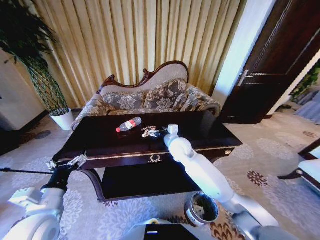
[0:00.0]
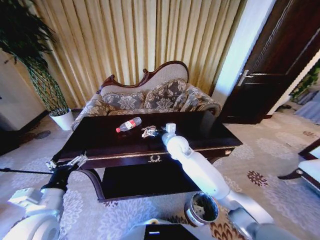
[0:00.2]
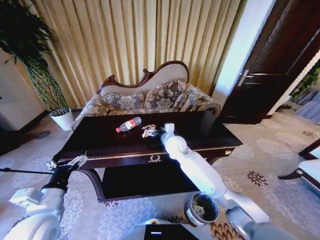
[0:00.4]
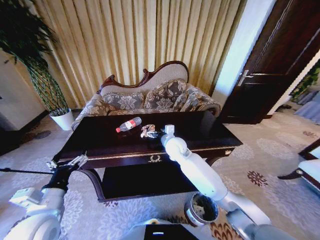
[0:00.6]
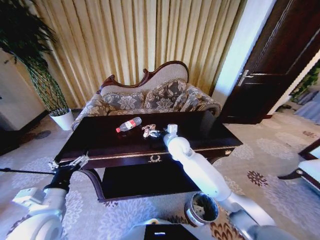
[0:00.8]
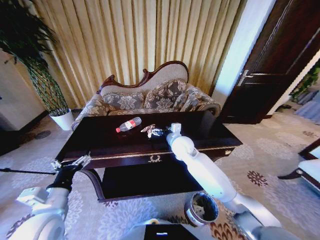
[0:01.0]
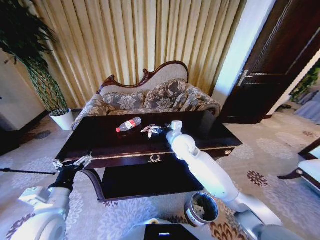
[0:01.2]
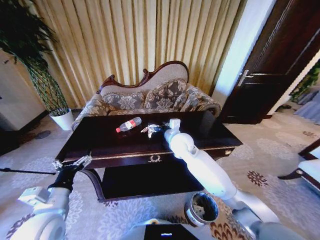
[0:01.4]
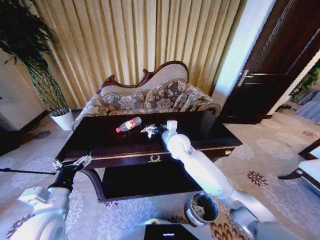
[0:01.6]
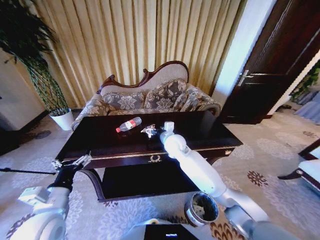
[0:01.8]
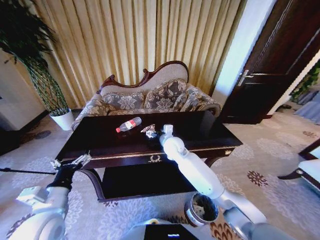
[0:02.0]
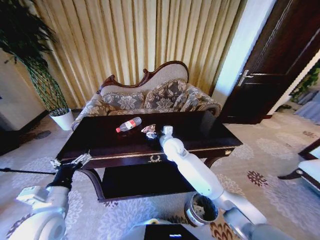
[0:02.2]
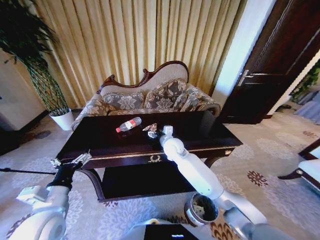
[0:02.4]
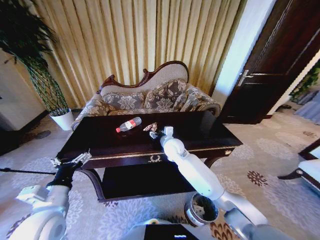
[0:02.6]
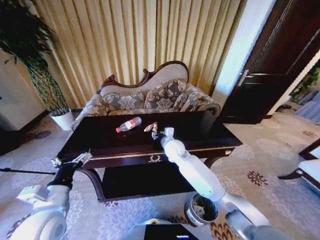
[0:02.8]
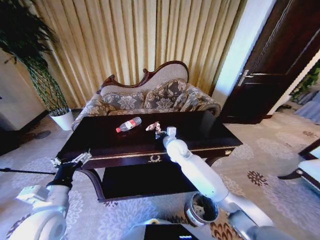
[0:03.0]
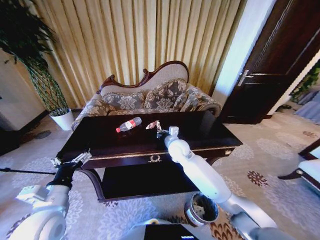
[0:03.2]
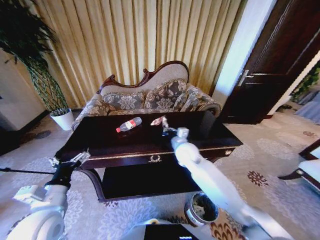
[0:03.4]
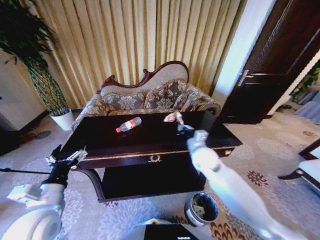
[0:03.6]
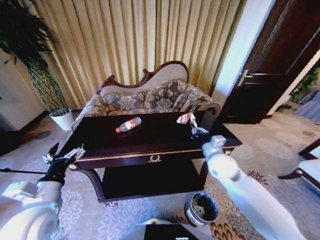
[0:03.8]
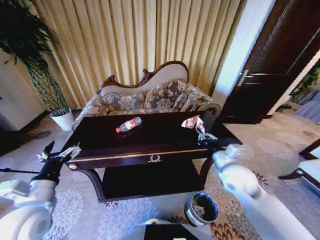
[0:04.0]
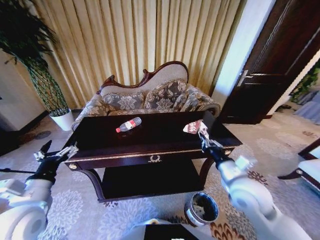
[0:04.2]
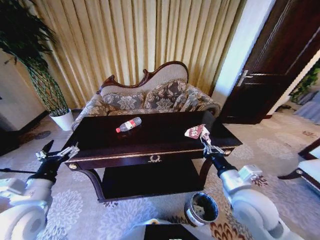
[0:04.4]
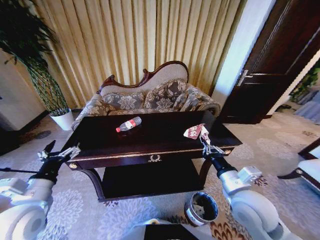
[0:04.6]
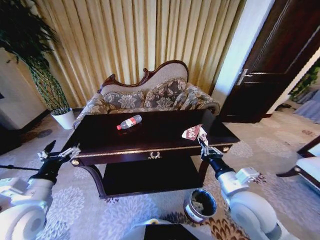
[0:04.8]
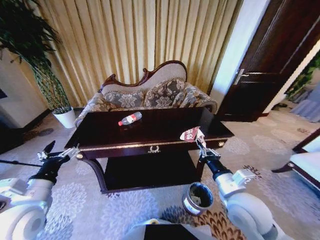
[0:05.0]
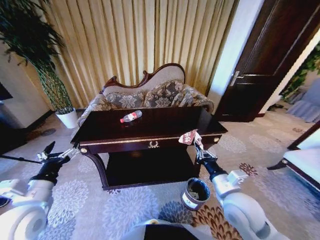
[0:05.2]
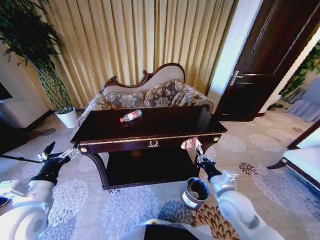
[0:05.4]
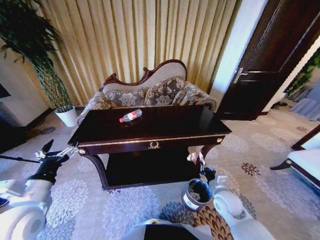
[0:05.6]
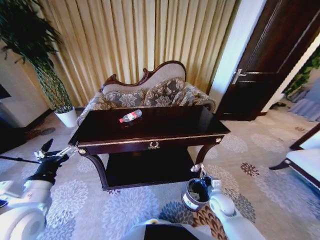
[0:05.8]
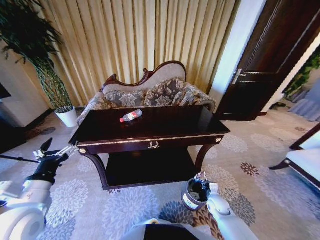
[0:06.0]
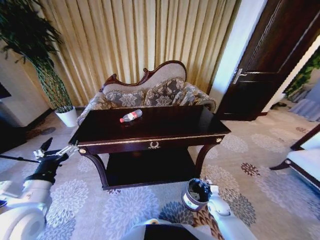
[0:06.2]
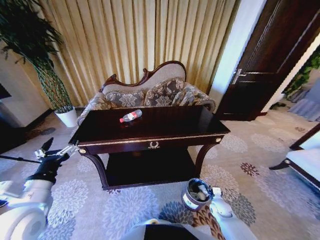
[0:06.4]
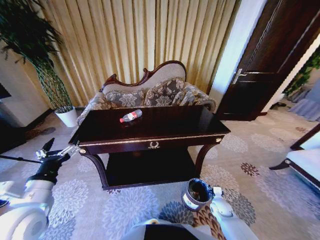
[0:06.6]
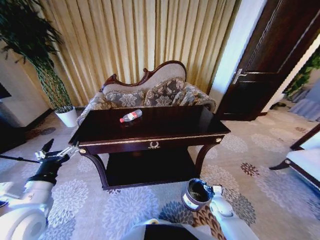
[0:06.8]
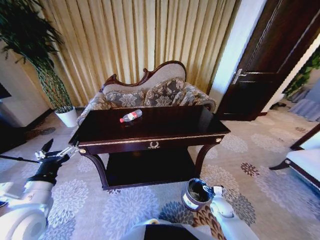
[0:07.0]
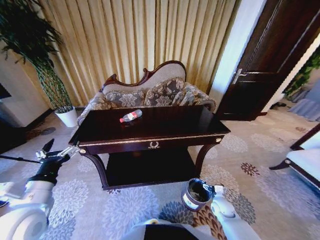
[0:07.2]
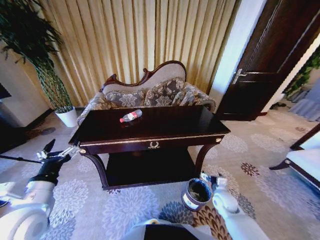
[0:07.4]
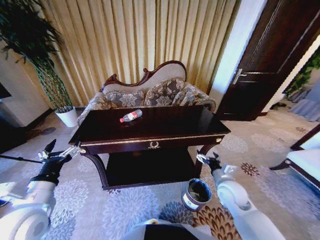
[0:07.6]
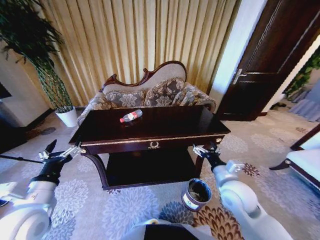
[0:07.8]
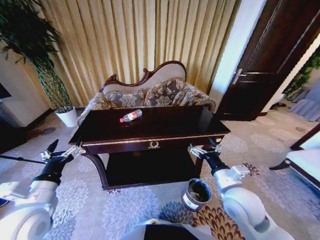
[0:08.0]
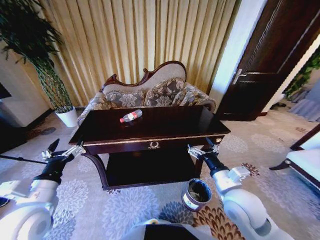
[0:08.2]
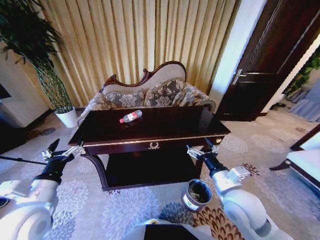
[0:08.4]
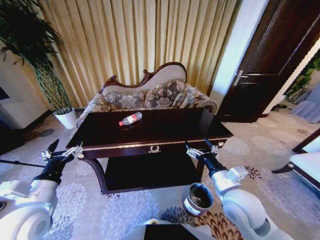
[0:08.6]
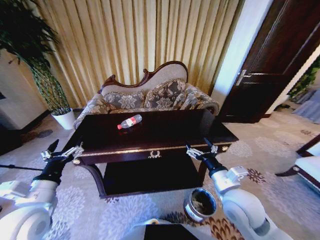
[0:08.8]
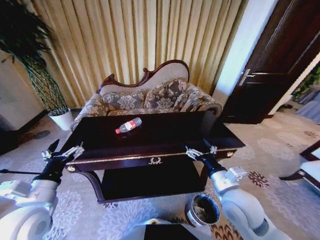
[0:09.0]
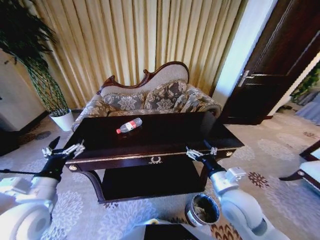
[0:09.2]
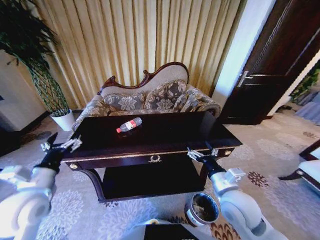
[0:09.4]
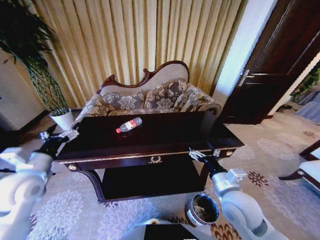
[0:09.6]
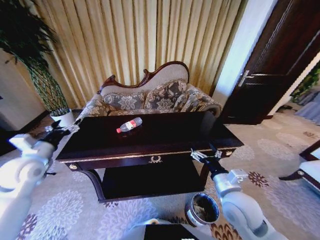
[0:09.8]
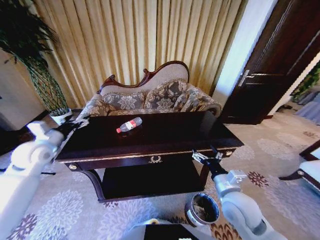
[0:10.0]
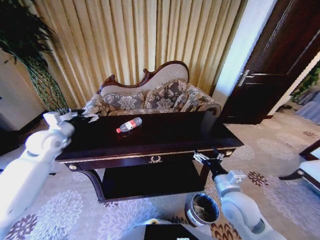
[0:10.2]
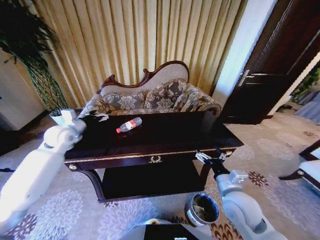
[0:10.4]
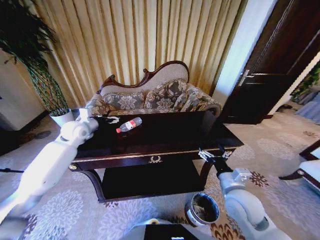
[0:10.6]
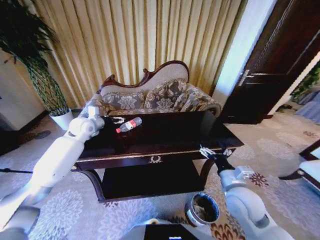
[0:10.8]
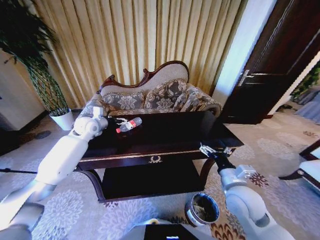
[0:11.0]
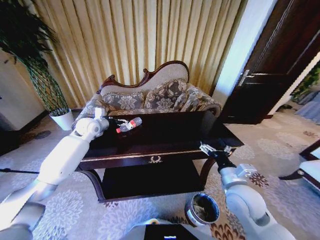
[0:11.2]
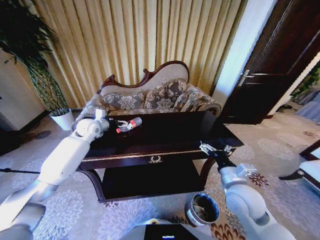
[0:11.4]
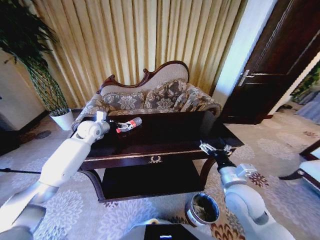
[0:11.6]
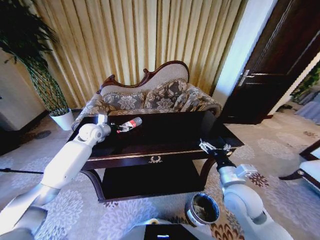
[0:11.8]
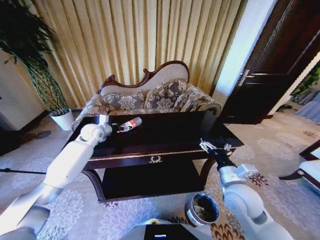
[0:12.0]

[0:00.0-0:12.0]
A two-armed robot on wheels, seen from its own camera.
Task of the whole recording: Move to the front of the table and place the trash on the table into the trash bin.
0:00.0 to 0:01.6: The grippers move only a little.
0:01.6 to 0:03.0: The right gripper heads downward, covering roughly 5 cm, and closes.
0:03.0 to 0:04.4: The left gripper moves about 5 cm. Meanwhile the right gripper travels backward and to the right by some 30 cm.
0:04.4 to 0:06.0: The right gripper moves downward, roughly 30 cm.
0:06.0 to 0:07.6: The right gripper goes about 15 cm upward, and opens.
0:07.6 to 0:09.0: The right gripper goes approximately 15 cm upward, to the left and backward.
0:09.0 to 0:10.4: The left gripper moves forward, some 30 cm.
0:10.4 to 0:12.0: The left gripper heads to the right, forward and downward, covering some 10 cm.

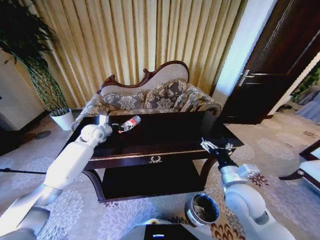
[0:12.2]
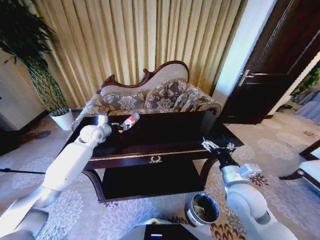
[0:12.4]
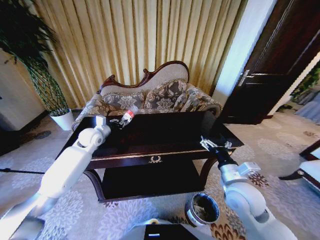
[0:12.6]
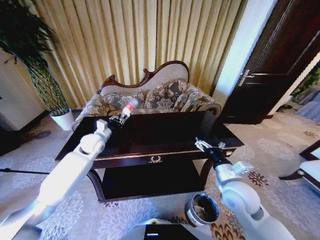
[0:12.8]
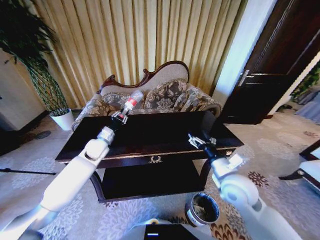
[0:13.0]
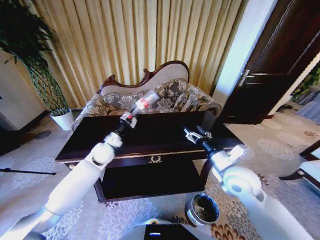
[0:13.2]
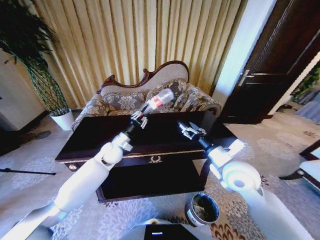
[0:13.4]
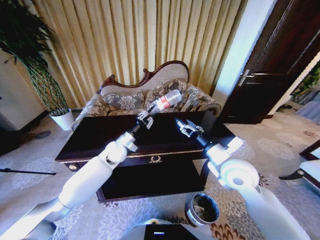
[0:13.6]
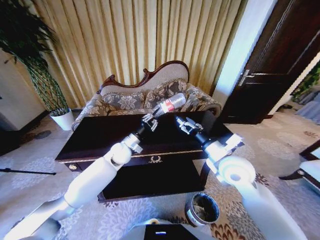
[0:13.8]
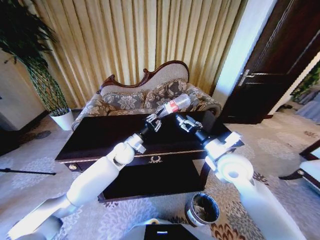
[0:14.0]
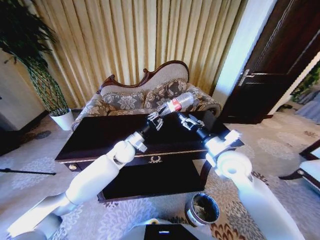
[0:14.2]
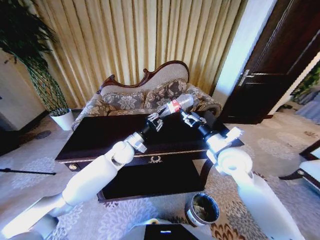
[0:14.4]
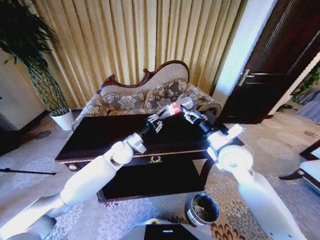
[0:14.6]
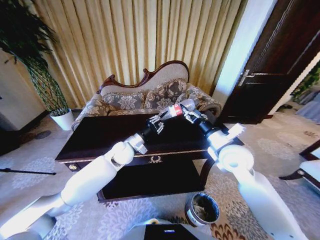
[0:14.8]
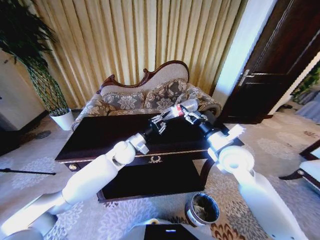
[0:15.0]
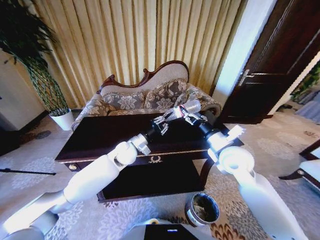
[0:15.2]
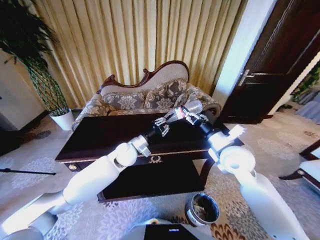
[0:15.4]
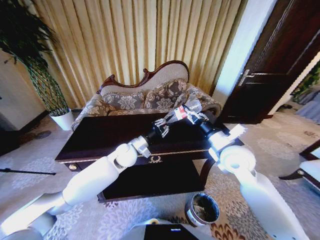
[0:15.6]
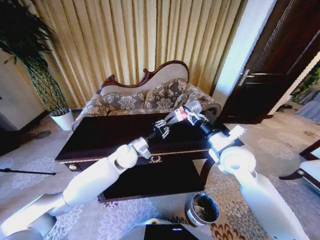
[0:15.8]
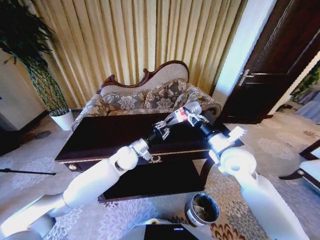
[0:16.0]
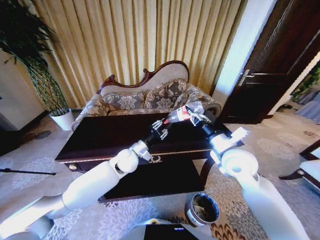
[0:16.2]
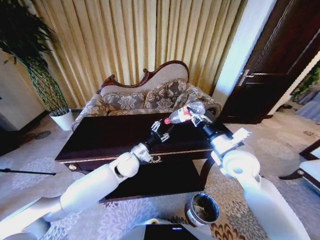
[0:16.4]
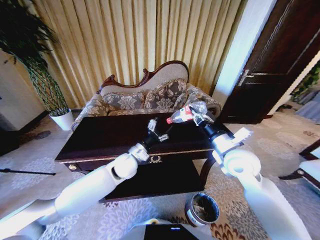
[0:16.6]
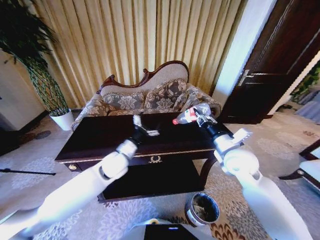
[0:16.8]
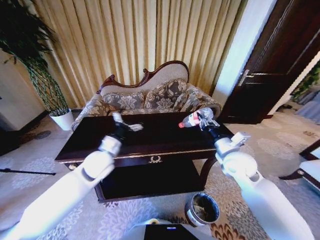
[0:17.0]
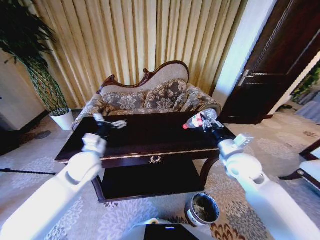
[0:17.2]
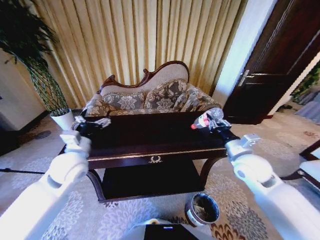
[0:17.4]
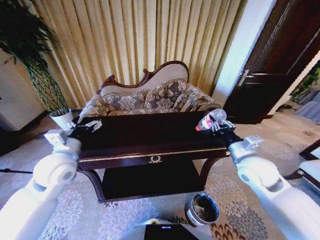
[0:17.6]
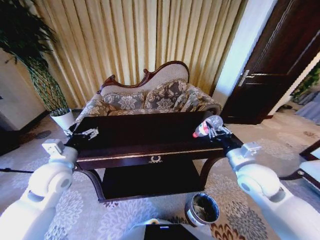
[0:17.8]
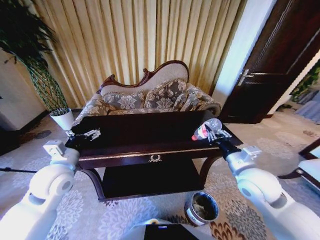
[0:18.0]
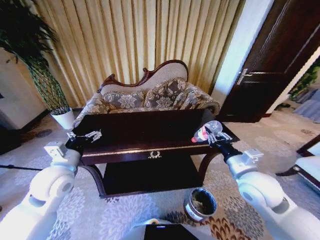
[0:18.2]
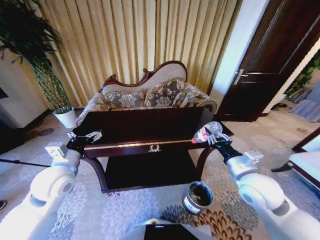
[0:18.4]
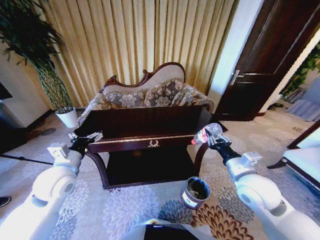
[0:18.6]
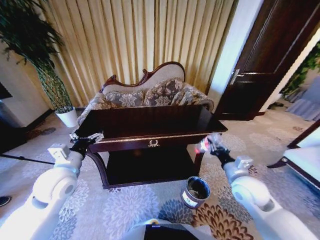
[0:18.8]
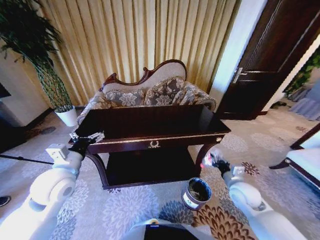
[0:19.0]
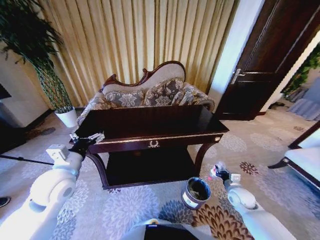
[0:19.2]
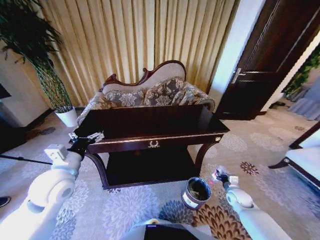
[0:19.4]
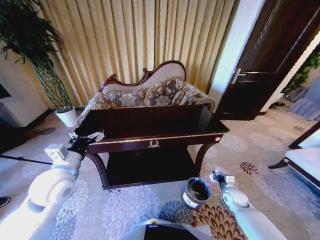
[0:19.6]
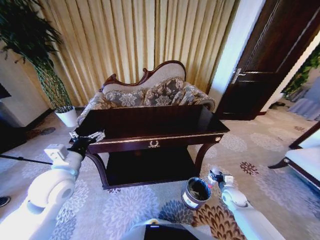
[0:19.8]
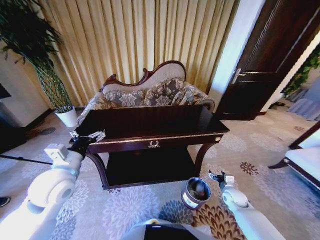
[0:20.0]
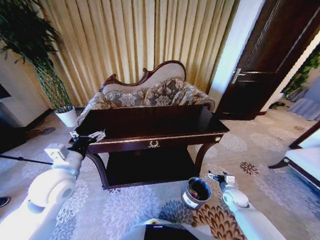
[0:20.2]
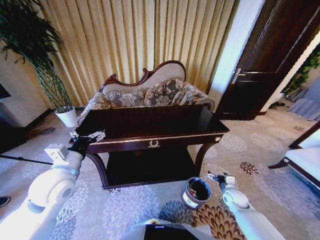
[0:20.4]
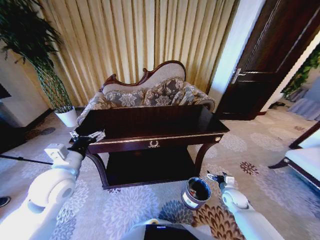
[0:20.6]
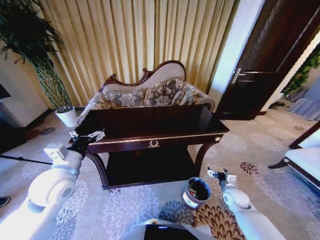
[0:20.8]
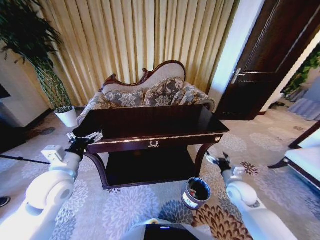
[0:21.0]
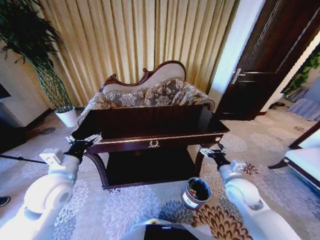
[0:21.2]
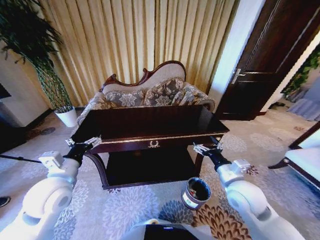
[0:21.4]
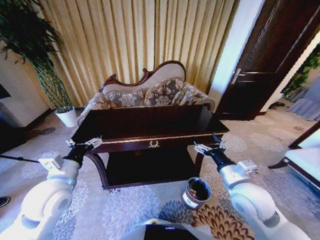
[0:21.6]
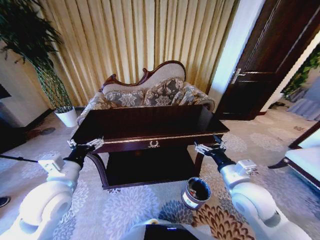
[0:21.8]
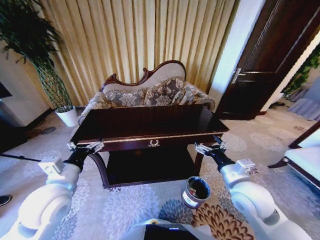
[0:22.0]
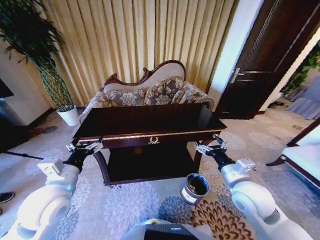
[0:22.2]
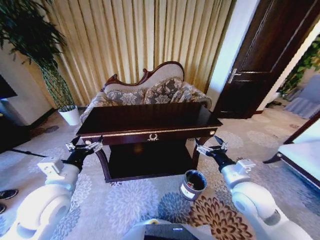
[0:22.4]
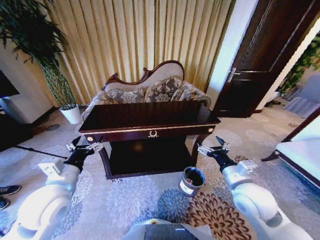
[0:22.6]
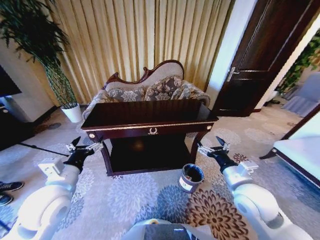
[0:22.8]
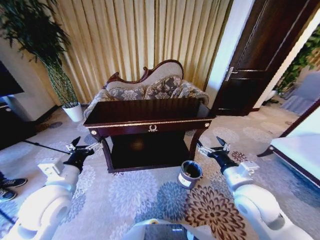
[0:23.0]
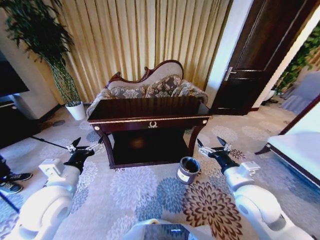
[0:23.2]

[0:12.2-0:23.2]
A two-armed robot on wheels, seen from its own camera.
Task of the whole recording: Move to the front of the table and place the trash on the table into the trash bin.
0:12.2 to 0:13.8: The left gripper heads to the right and backward, covering some 15 cm, and closes up, while the right gripper is displaced upward and forward by roughly 10 cm.
0:13.8 to 0:15.4: The left gripper shifts by about 5 cm.
0:15.4 to 0:17.0: The left gripper goes roughly 10 cm to the left and backward, and opens its fingers; the right gripper closes.
0:17.0 to 0:18.4: The left gripper shifts about 10 cm to the left and backward. Meanwhile the right gripper heads backward, covering roughly 10 cm.
0:18.4 to 0:20.0: The right gripper moves downward, about 30 cm, and opens up.
0:20.0 to 0:21.6: The right gripper heads upward and to the left, covering about 30 cm.
